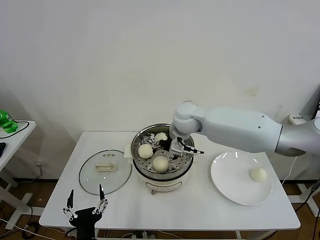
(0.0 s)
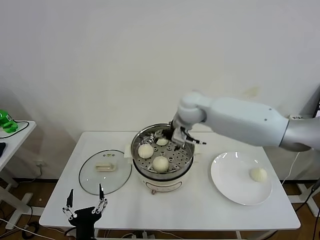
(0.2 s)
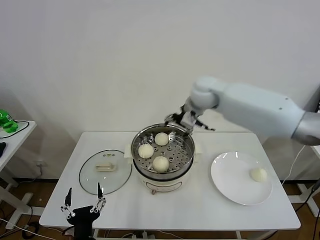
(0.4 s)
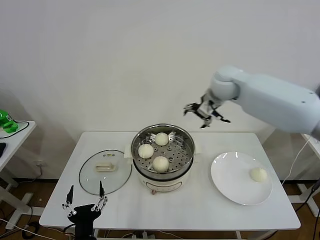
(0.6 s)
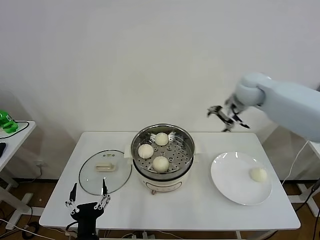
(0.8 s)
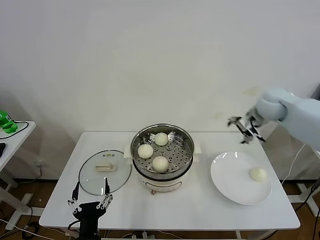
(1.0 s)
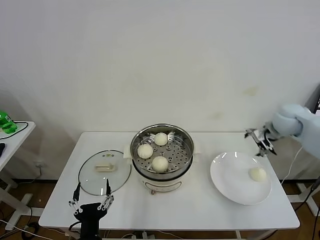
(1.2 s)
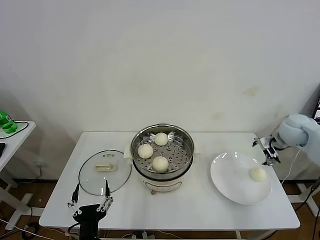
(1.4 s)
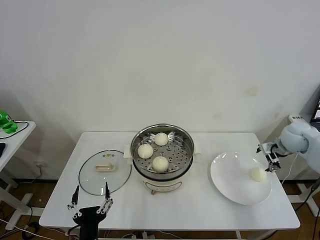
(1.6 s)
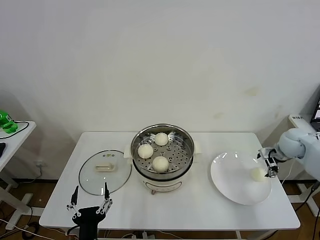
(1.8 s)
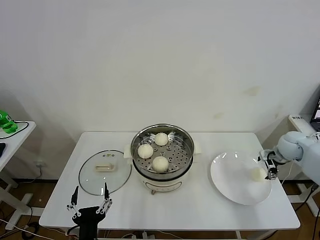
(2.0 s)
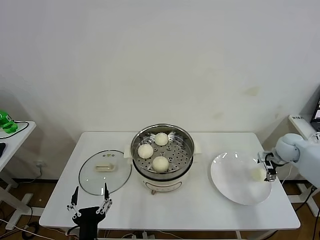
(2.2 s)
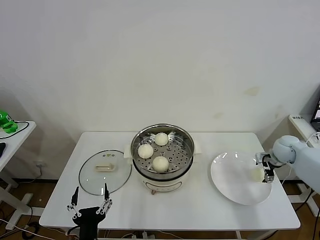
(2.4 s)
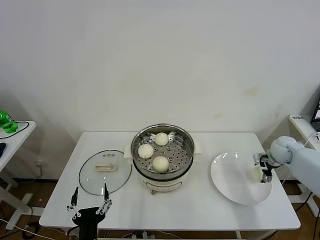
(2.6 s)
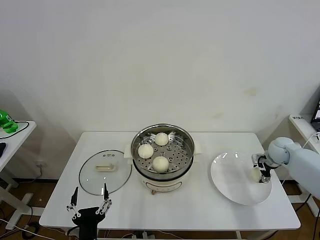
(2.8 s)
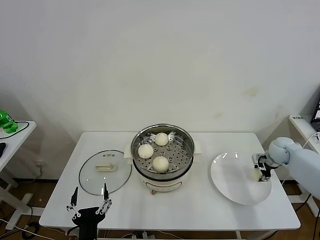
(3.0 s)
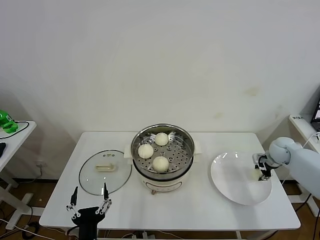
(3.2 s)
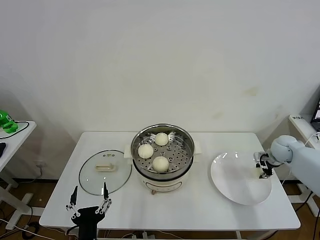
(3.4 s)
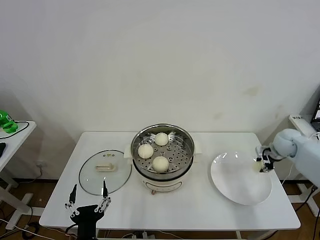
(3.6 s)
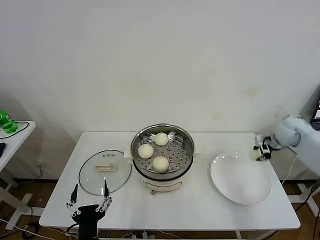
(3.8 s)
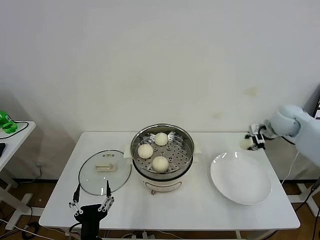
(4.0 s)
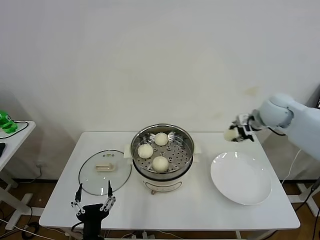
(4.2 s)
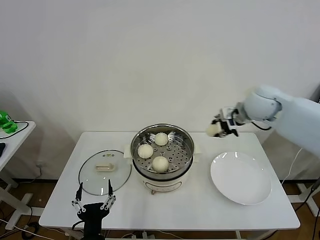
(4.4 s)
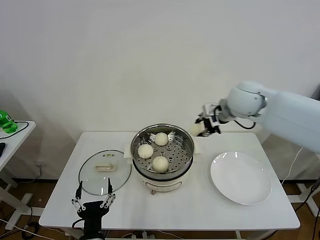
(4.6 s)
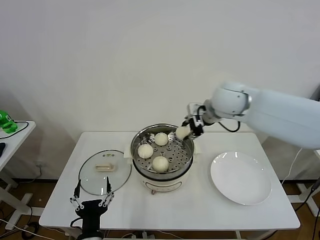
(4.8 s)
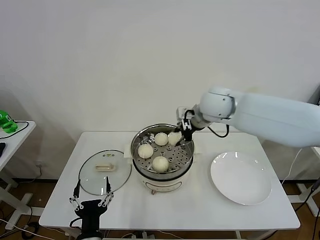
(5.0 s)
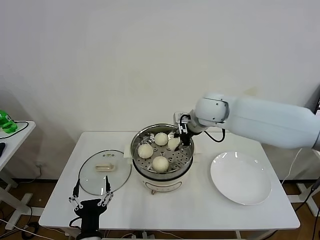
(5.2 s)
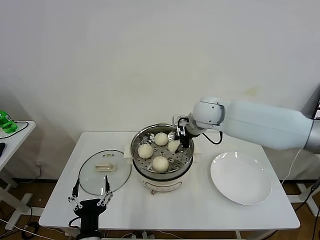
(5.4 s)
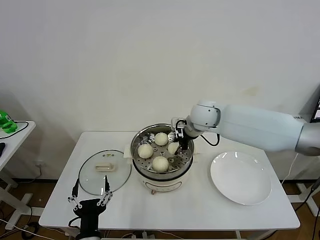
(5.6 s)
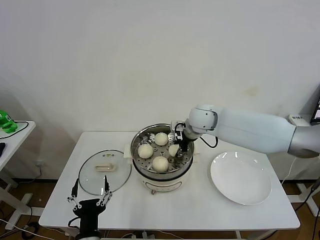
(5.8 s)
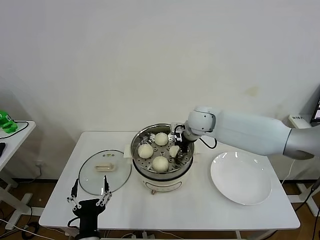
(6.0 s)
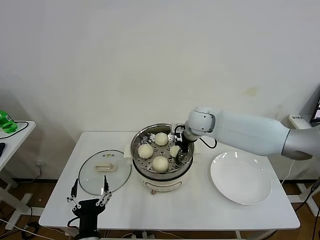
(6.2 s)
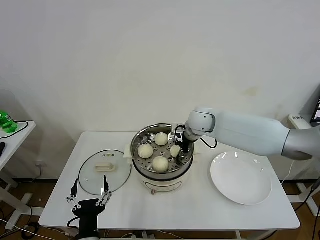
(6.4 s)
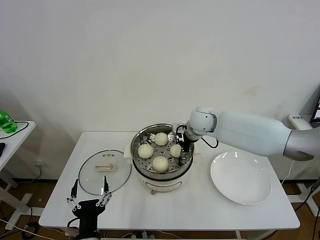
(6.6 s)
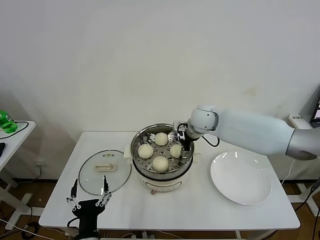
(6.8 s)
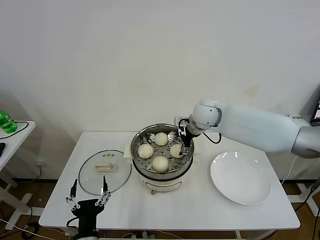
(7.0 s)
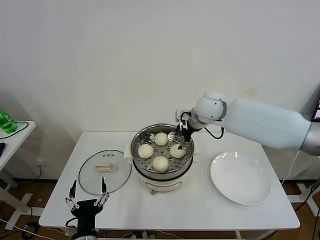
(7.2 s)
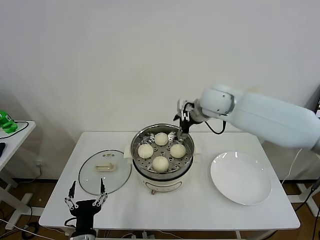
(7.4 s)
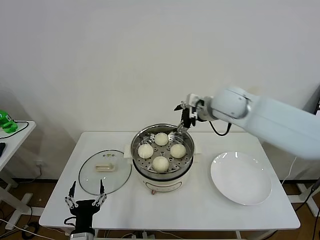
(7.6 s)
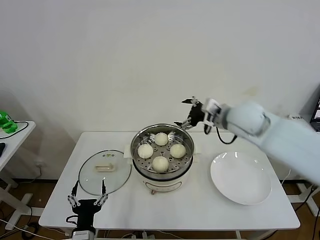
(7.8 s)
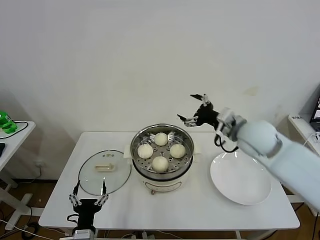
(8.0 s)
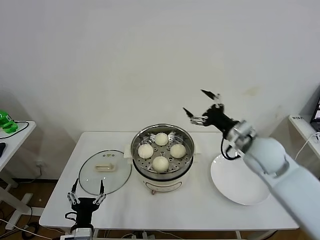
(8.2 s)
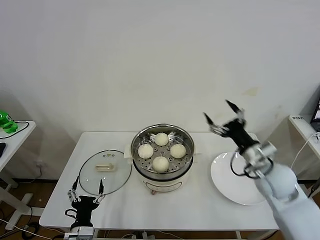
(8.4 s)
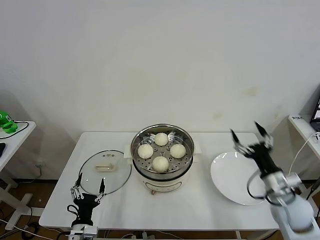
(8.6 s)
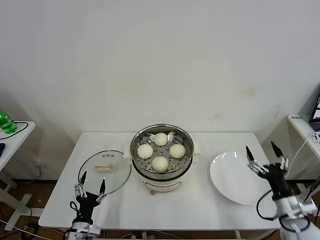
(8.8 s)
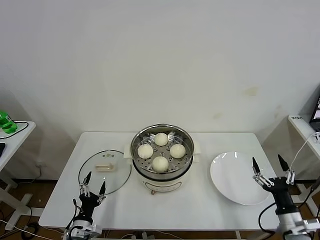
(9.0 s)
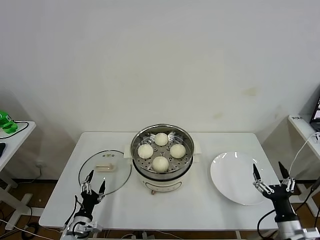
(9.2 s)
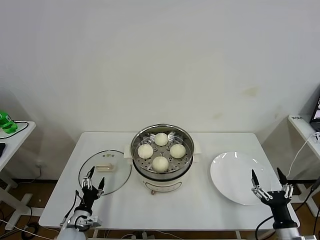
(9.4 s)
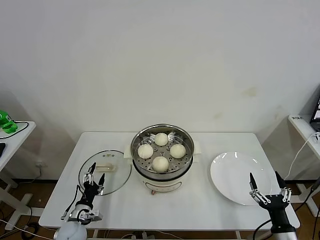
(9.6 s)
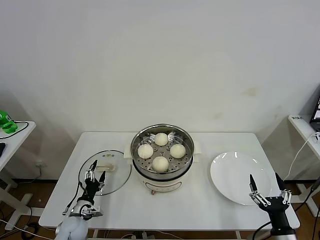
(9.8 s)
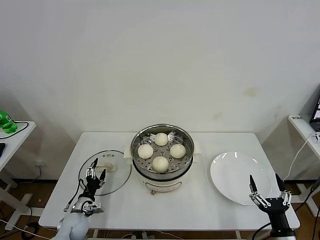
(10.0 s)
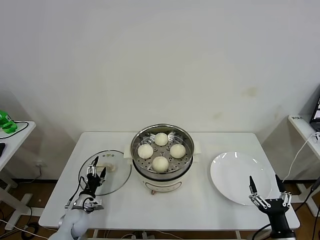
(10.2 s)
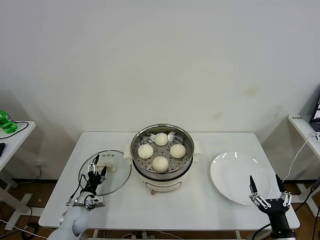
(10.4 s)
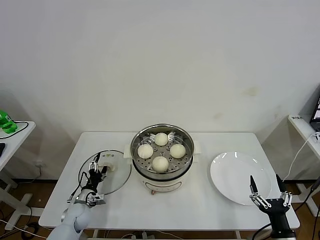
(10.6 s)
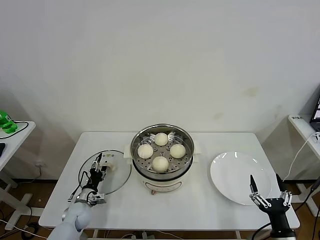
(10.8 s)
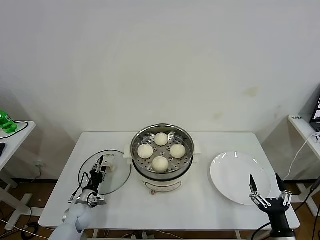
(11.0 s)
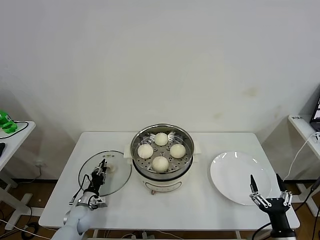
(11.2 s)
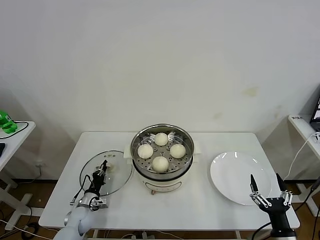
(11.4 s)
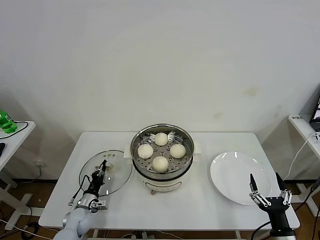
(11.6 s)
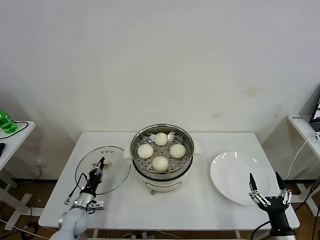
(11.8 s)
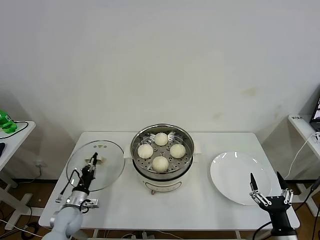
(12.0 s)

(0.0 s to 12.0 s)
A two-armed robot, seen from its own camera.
Task of the whole recording: take steamed baozi put them in steamer then cover it.
Step, 0.0 s - 3.2 s: Grasp the baozi in the plate with right gripper.
Step, 3.6 s - 6.6 s: Place the baozi on the steamer with right gripper.
Step, 6.8 s - 11.6 s: Grasp the pot lid with left gripper.
0.0 s - 1.6 s: The right gripper travels to the right by approximately 35 cm.
1.6 s - 3.0 s: The right gripper moves downward, roughly 10 cm, and closes its fingers.
3.0 s - 4.4 s: The right gripper is displaced upward and to the left by about 30 cm.
4.4 s - 6.0 s: The right gripper travels to the left and downward by roughly 15 cm.
6.0 s - 7.6 s: The right gripper goes some 10 cm upward and to the right, and opens its fingers.
7.6 s - 9.0 s: The left gripper shifts about 15 cm downward, to the left and forward. The right gripper is displaced backward, downward and to the right by some 50 cm.
9.0 s - 10.4 s: The left gripper goes approximately 10 cm forward; the right gripper is displaced backward by some 5 cm.
10.4 s - 12.0 s: The left gripper closes its fingers.

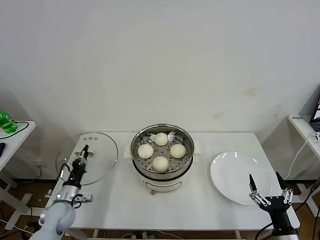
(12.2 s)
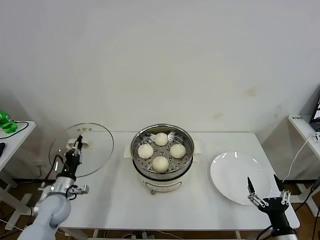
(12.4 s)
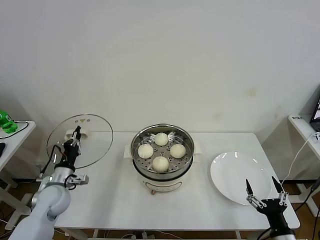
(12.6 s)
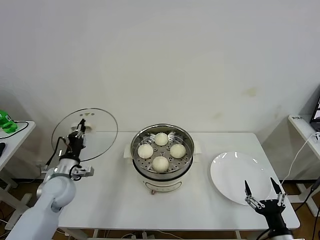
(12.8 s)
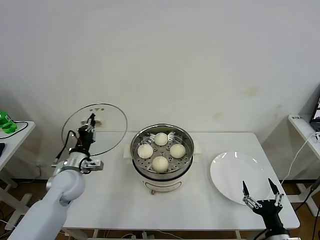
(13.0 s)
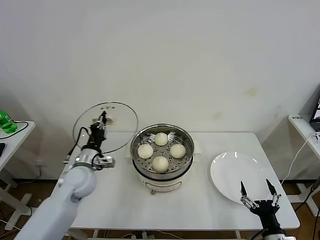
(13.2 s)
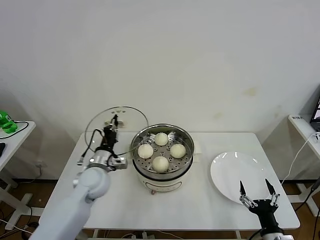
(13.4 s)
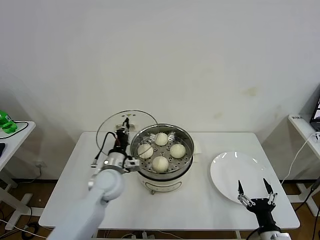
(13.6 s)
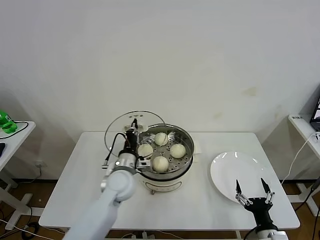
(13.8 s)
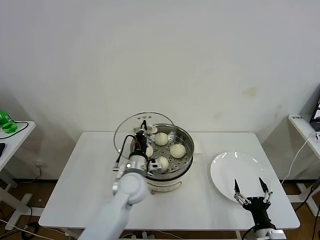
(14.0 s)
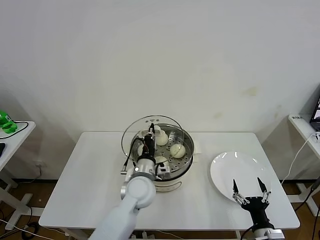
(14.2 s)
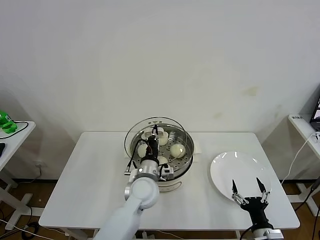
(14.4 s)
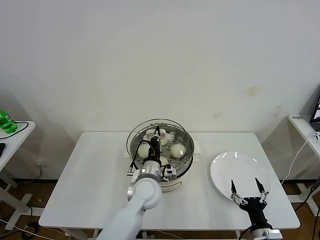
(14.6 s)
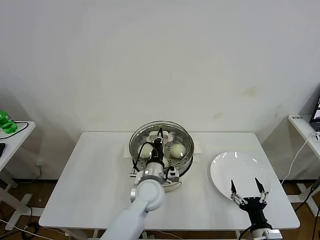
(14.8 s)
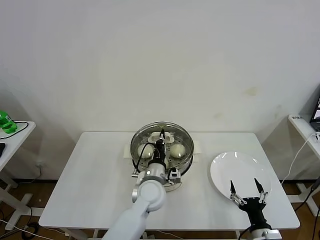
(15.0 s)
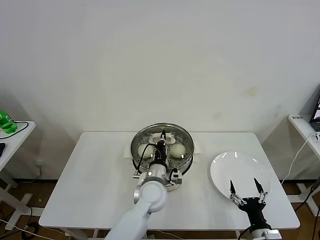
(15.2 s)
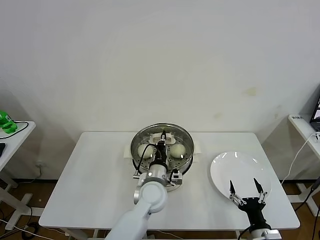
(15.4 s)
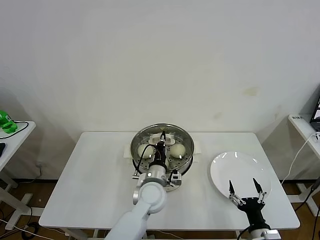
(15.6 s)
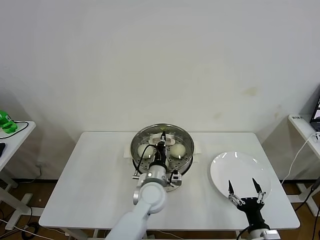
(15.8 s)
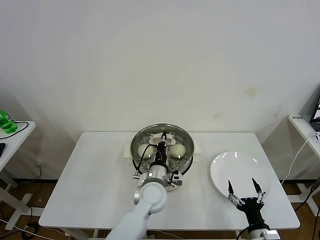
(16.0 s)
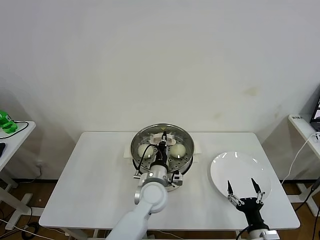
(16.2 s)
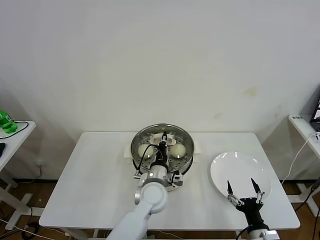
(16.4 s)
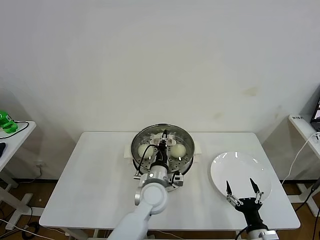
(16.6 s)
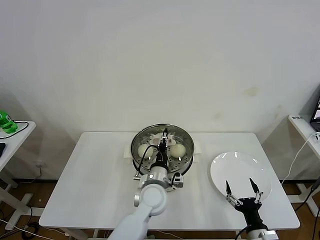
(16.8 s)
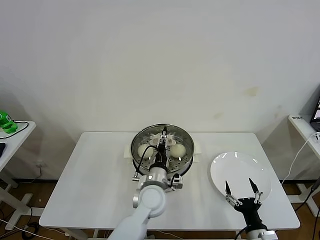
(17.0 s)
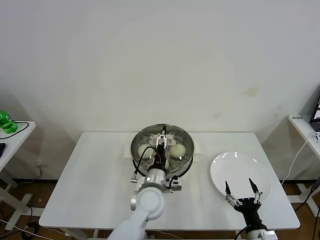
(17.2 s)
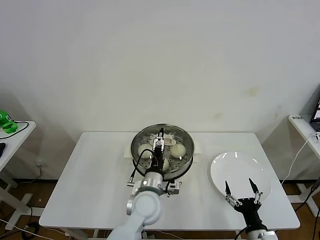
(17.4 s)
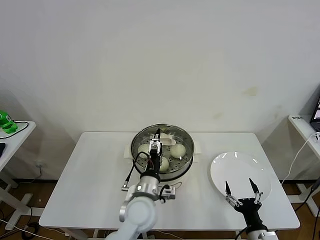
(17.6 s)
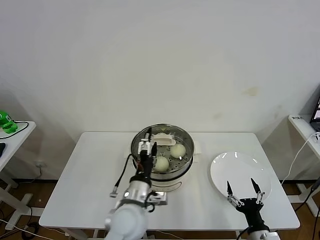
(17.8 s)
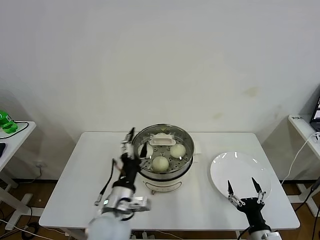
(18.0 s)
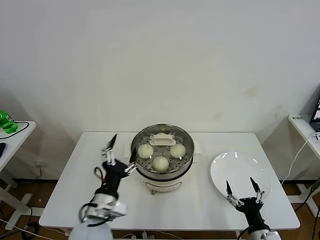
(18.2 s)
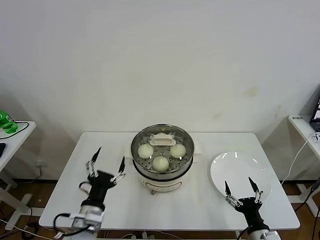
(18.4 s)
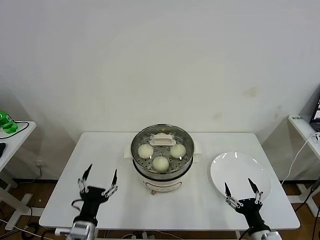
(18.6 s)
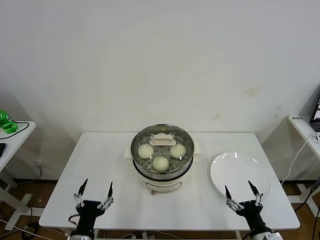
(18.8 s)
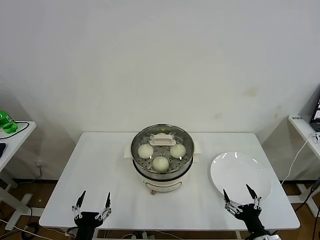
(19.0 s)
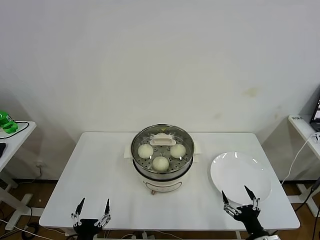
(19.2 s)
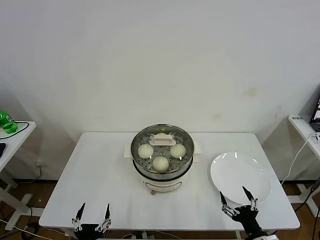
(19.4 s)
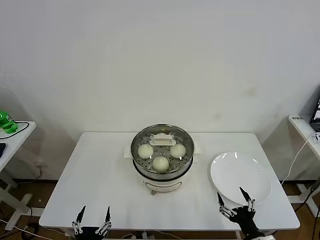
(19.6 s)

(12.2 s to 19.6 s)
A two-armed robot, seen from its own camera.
Task of the whole recording: take steamed baozi put them in steamer then cover it.
Step, 12.2 s - 17.0 s: Place the pot lid on the steamer with left gripper.
12.2 s - 13.6 s: The left gripper moves to the right and upward, approximately 25 cm.
13.6 s - 15.2 s: The left gripper shifts about 15 cm to the right.
15.2 s - 16.6 s: Both grippers stay about where they are.
16.6 s - 18.2 s: The left gripper goes roughly 20 cm to the left, backward and upward, and opens up.
18.2 s - 19.6 s: The left gripper moves backward, downward and to the left, roughly 20 cm.
